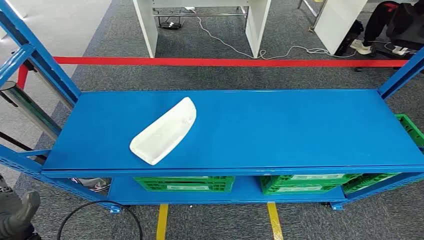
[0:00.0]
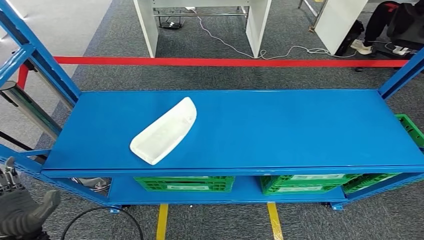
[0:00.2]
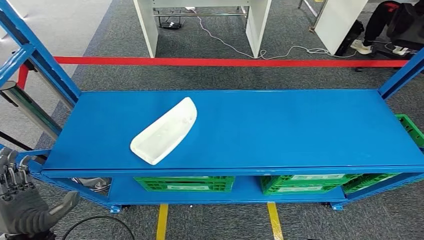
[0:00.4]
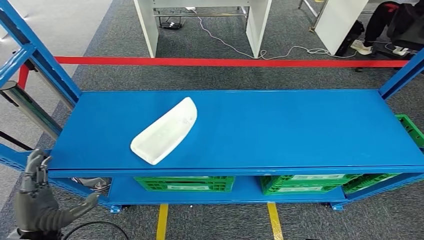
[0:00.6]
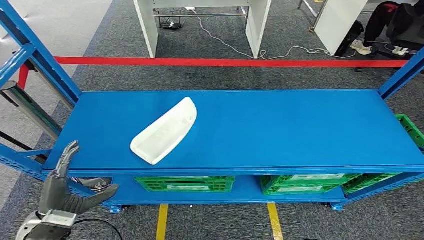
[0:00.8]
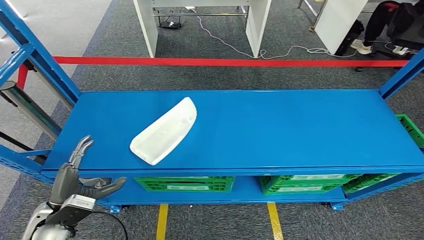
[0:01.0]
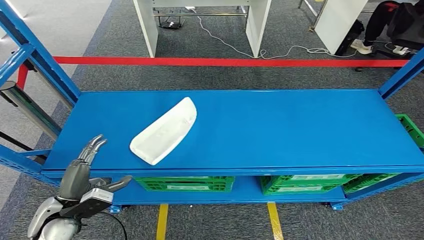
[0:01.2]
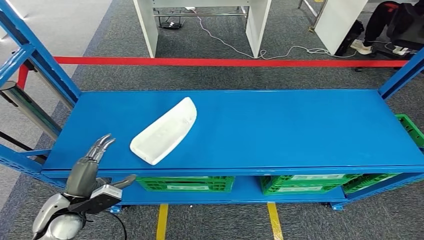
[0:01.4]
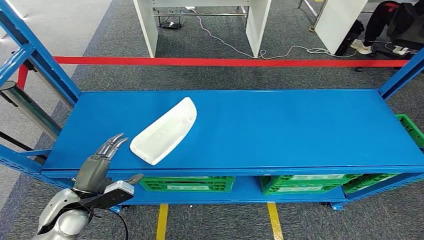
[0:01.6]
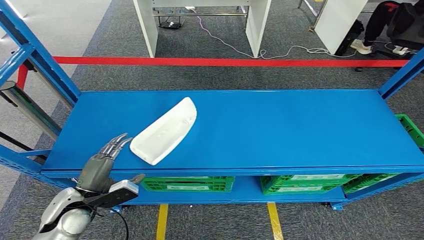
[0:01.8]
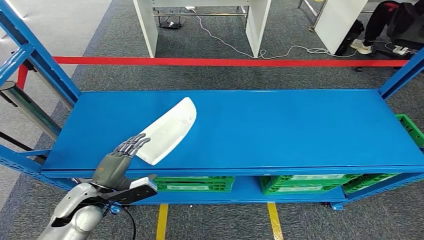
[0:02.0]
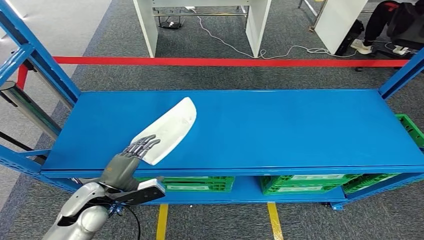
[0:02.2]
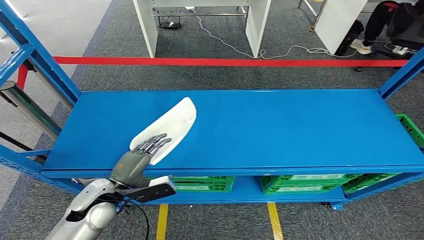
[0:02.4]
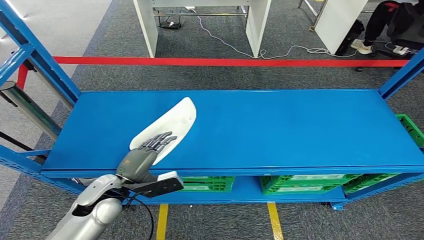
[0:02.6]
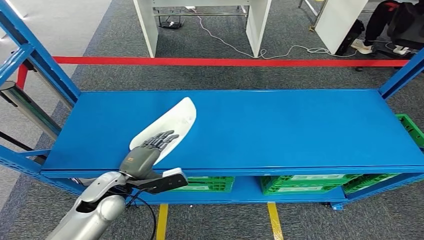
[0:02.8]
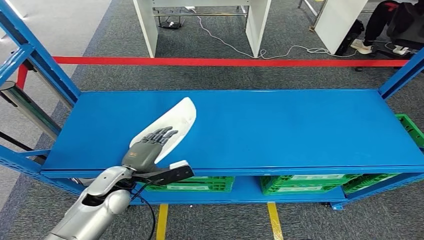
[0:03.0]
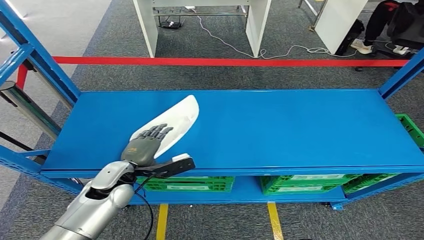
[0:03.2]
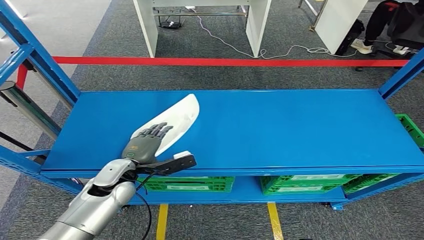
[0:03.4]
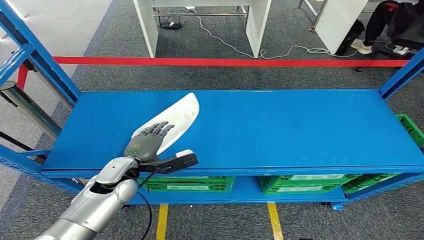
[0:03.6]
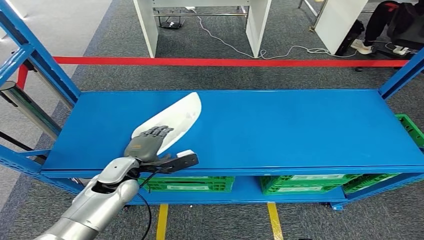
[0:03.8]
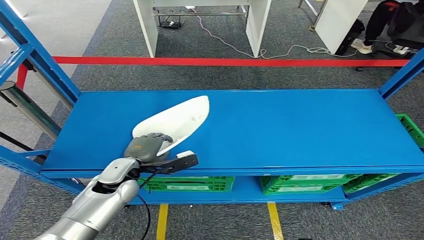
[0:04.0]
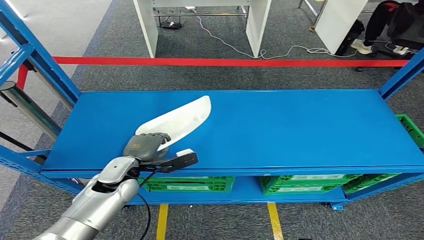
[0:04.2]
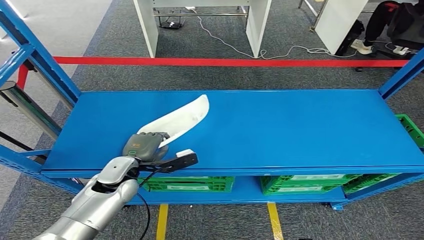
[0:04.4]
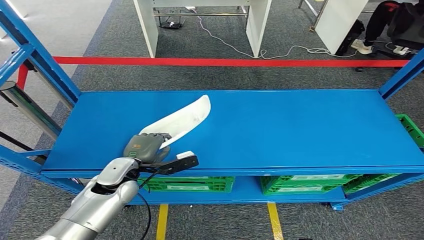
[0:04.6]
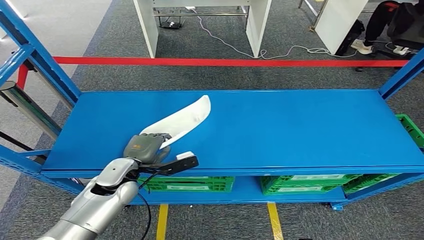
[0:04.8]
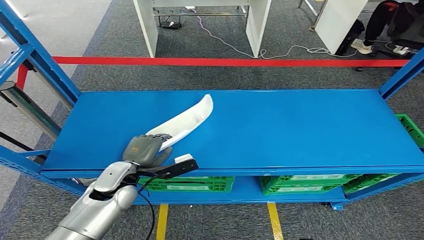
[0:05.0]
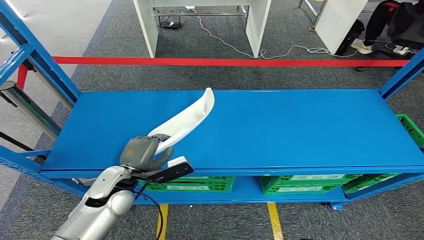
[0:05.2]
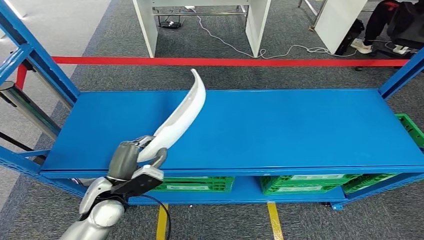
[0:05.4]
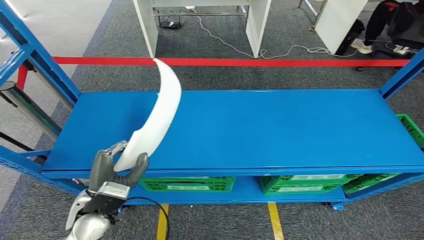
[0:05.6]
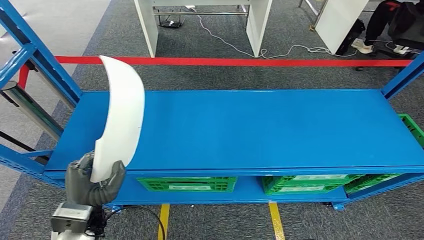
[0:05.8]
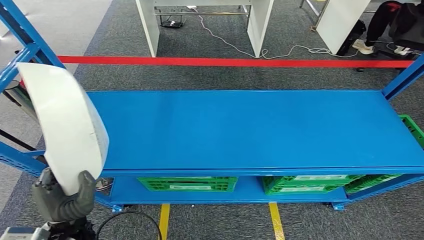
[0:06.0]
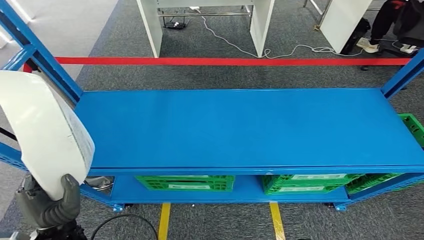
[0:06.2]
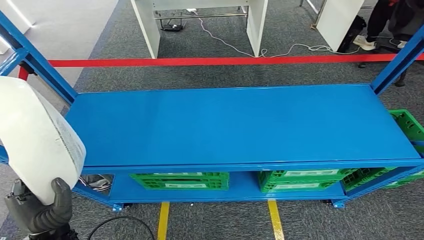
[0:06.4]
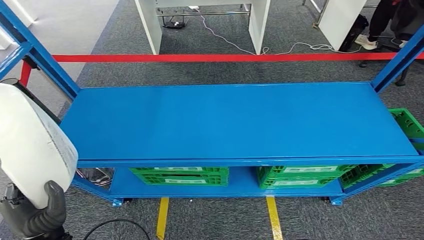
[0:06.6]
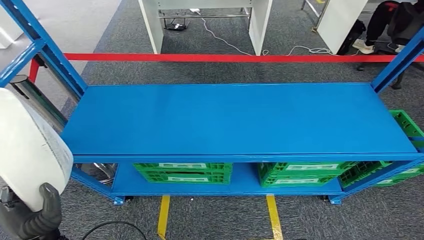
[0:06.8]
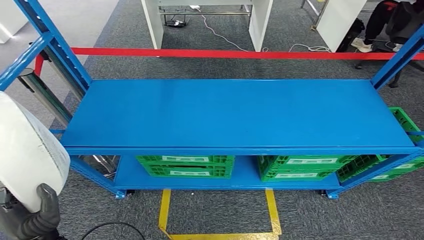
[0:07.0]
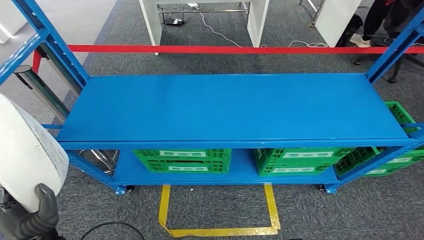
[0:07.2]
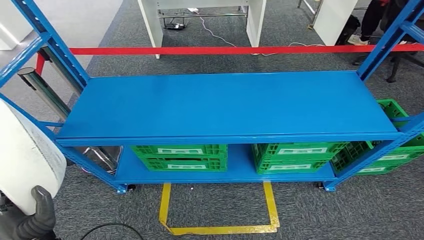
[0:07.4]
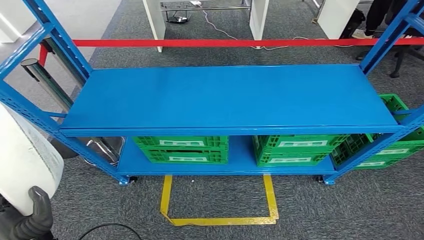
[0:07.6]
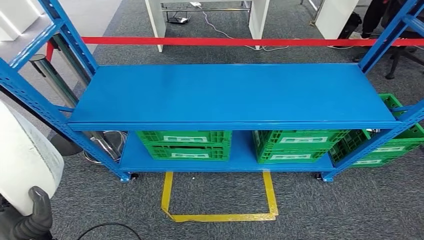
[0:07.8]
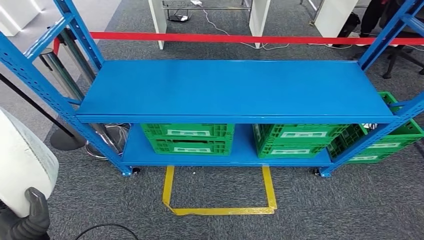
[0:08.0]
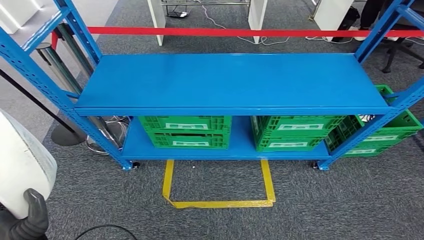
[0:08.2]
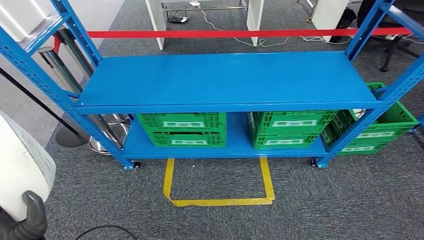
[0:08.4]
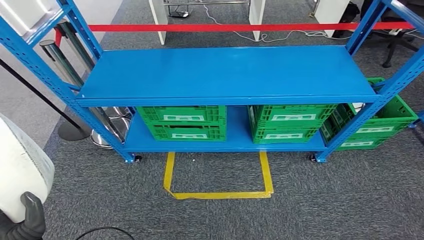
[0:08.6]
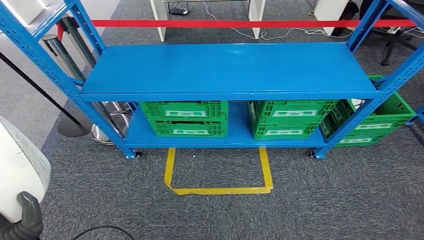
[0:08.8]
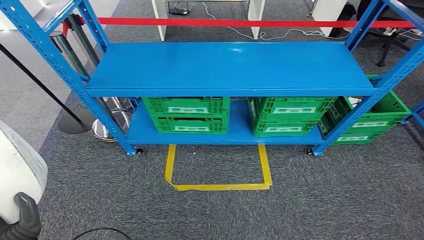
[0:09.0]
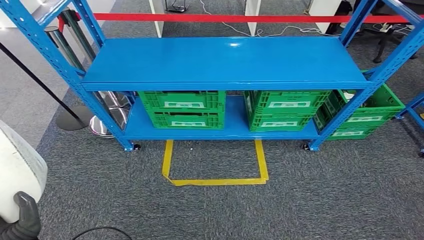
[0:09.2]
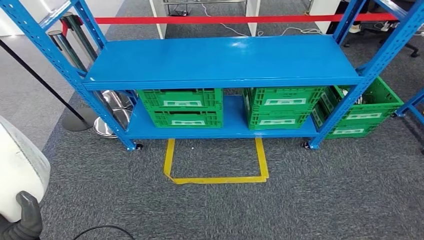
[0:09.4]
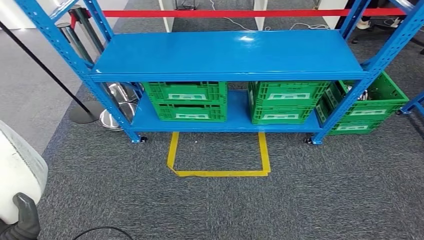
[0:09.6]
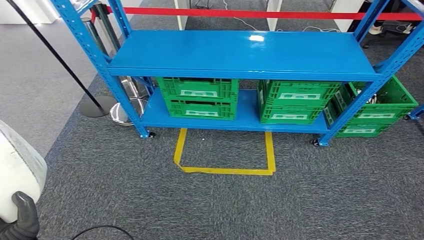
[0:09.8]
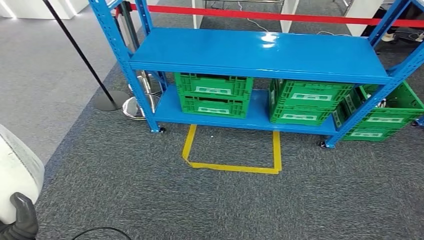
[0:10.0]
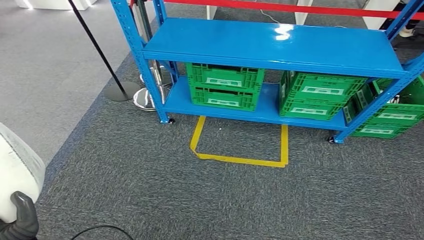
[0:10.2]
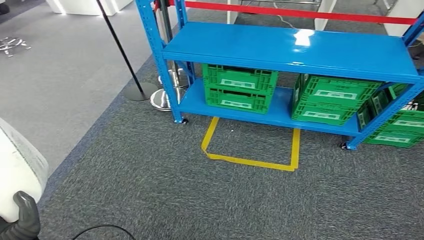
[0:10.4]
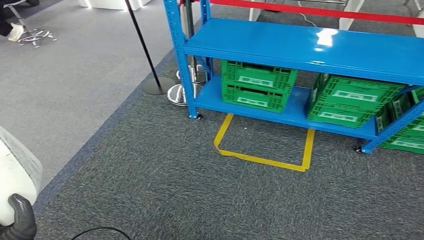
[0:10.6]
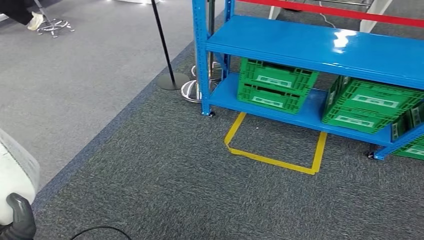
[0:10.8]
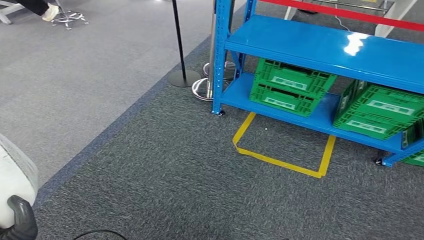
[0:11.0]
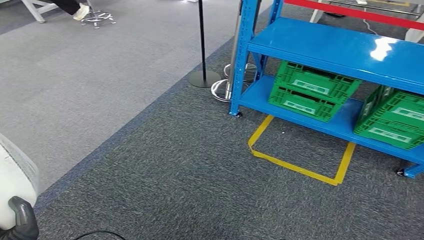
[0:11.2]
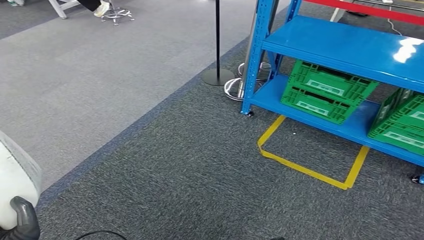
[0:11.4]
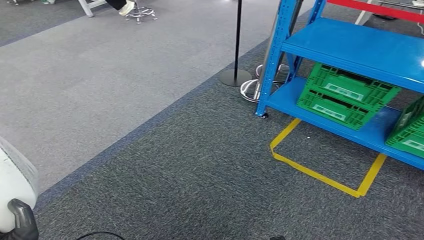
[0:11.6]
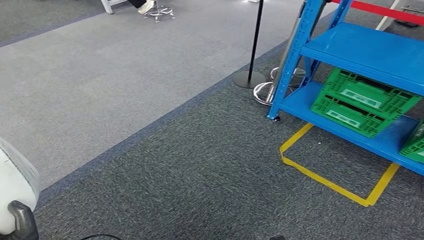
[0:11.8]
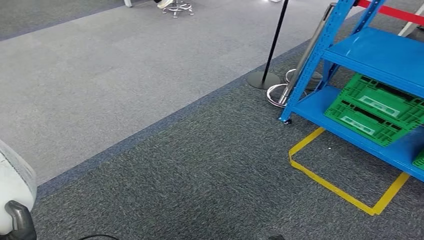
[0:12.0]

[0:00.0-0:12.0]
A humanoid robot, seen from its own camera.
Step, 0:00.0 to 0:06.8: Pick up the small component from the shelf.
0:01.6 to 0:03.0: The left hand goes about 10 cm to the right and forward.
0:03.0 to 0:04.4: The hands stay close to where they were, moving slightly.

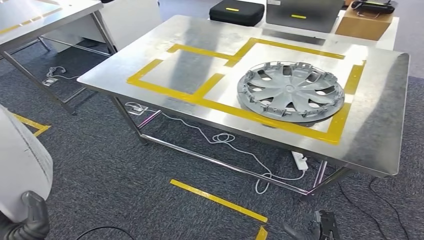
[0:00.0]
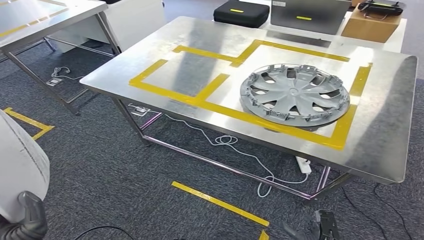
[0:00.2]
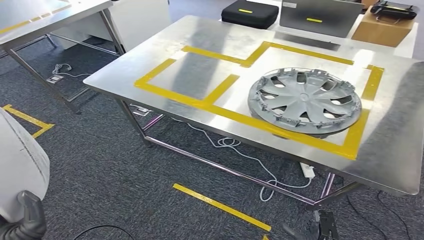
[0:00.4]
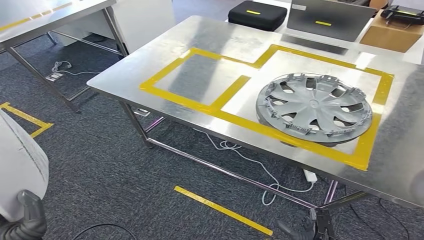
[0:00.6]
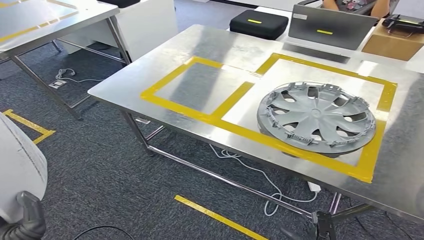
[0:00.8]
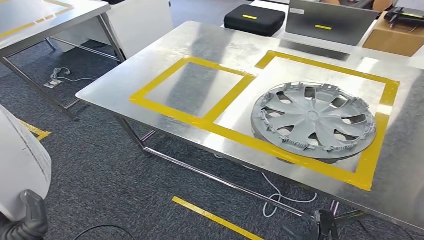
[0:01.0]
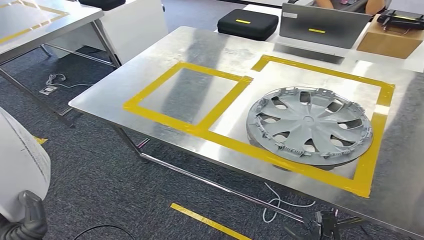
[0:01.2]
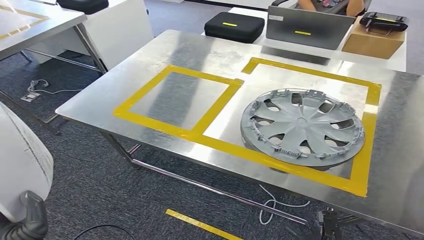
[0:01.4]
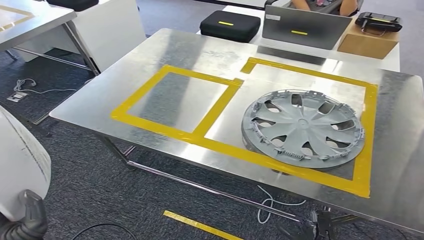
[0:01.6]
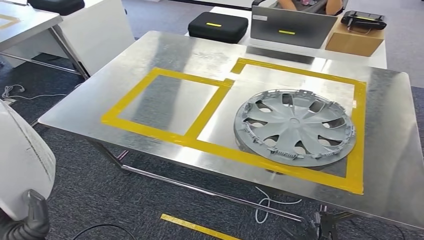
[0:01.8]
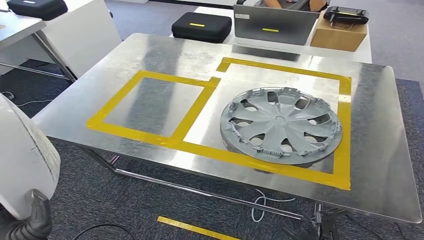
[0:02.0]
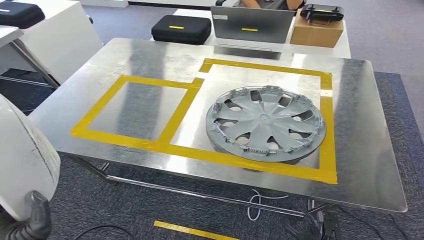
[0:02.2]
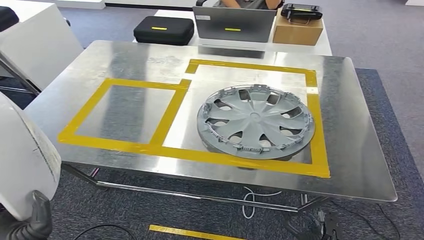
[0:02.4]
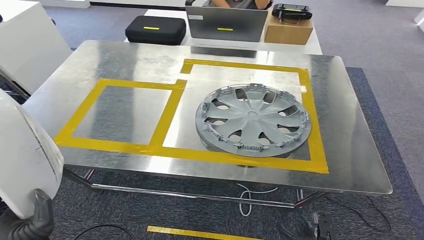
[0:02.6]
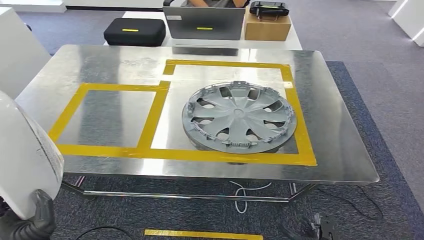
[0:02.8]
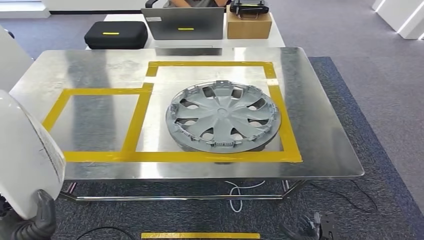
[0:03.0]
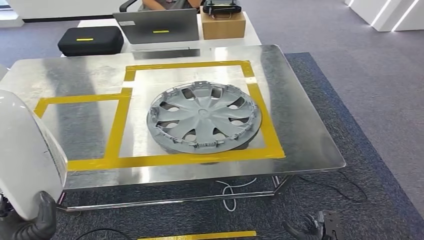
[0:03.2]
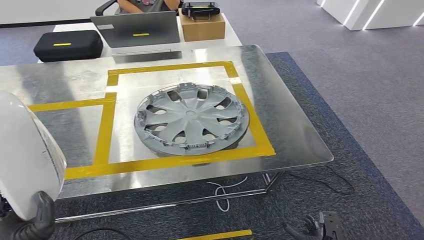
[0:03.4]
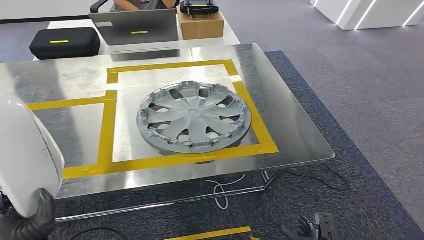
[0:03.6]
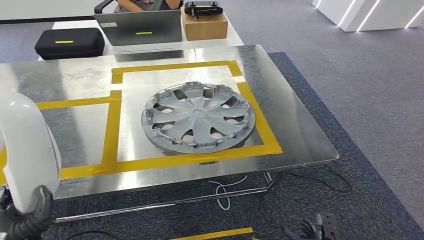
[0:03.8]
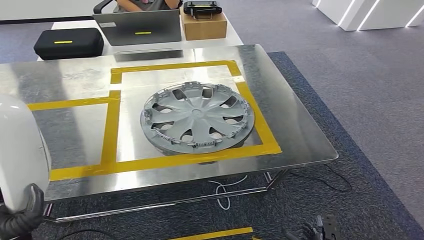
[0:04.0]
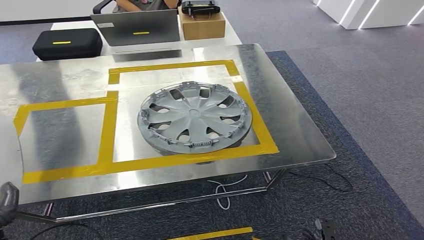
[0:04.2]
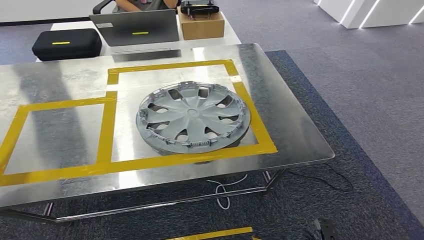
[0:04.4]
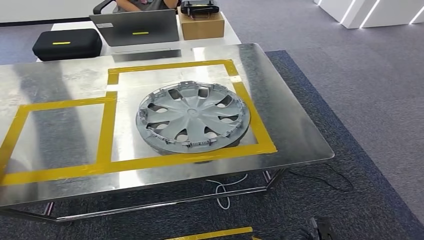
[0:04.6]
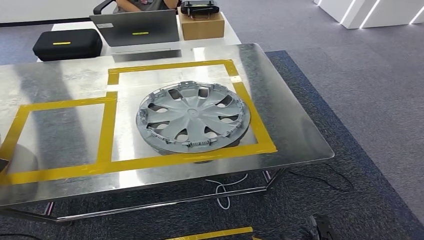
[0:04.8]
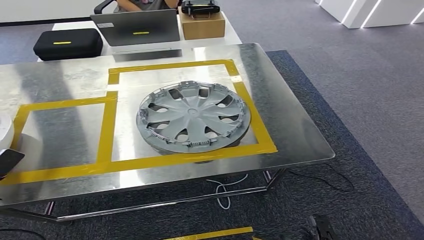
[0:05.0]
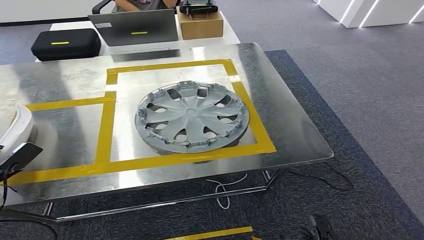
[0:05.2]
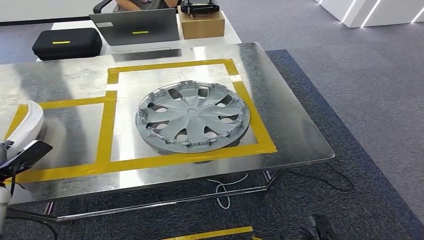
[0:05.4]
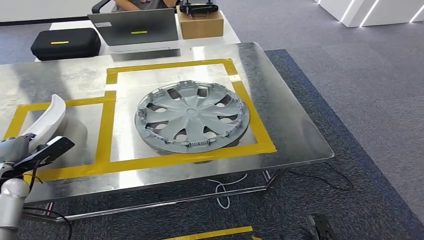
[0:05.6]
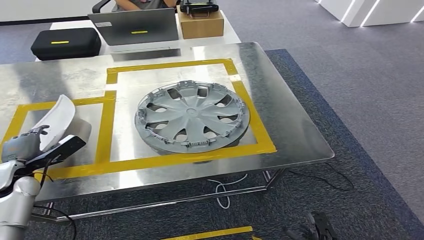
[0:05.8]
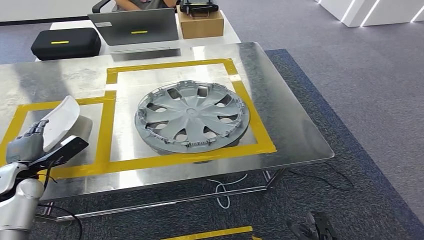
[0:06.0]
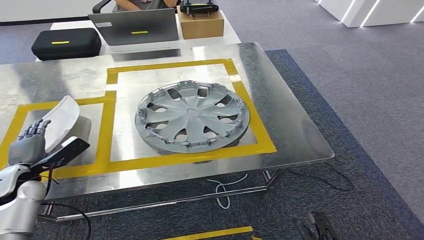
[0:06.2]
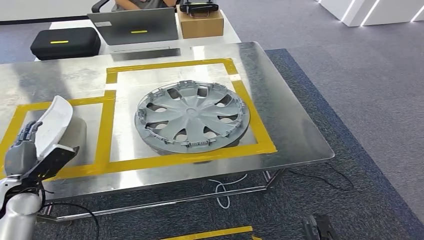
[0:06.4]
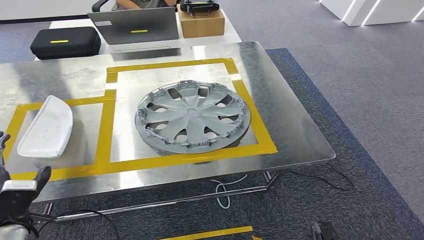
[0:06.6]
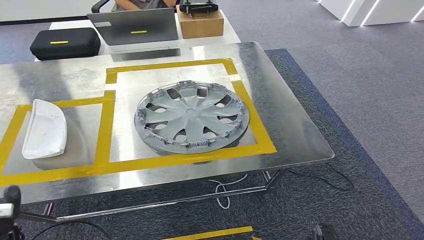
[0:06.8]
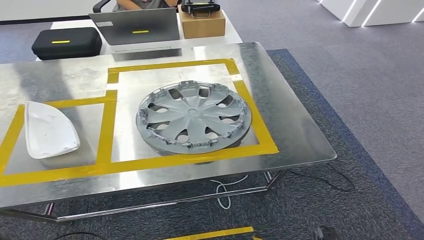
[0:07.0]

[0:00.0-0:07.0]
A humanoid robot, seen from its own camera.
Step, 0:00.0 to 0:03.8: Move the small component to the workbench.
0:04.2 to 0:05.6: The left hand shifts about 20 cm forward and to the left.
0:05.6 to 0:07.0: The left hand heads backward and to the right, covering approximately 25 cm.
